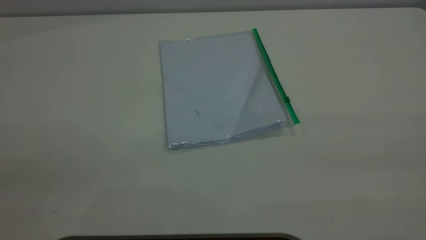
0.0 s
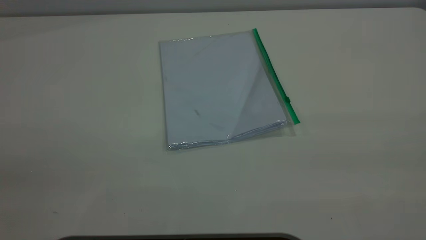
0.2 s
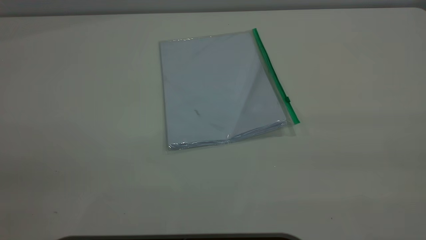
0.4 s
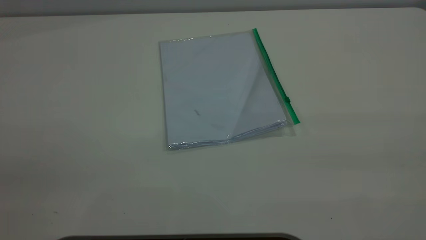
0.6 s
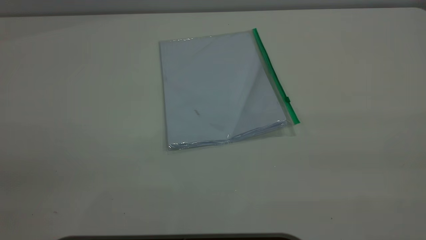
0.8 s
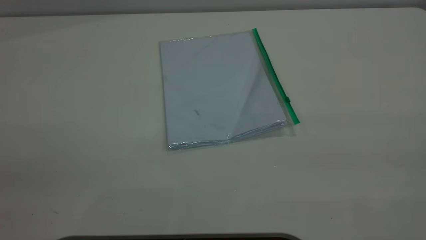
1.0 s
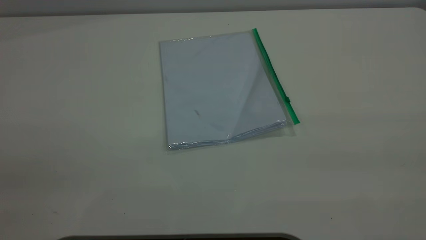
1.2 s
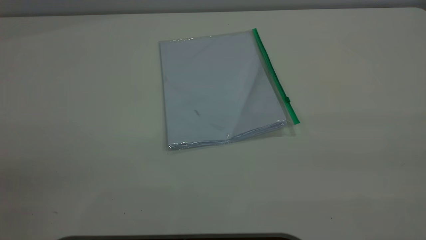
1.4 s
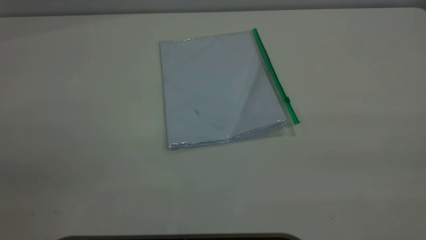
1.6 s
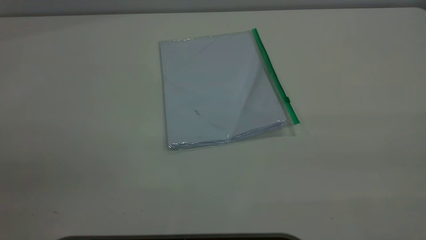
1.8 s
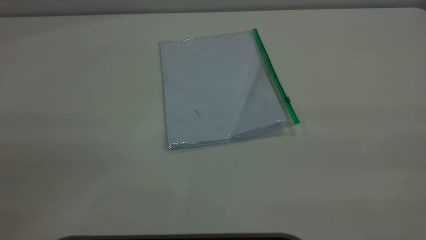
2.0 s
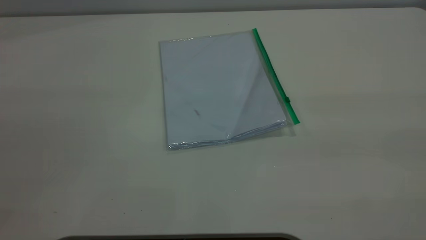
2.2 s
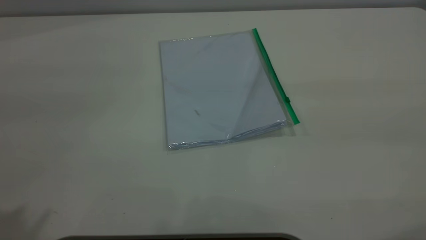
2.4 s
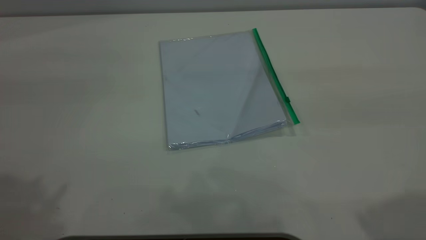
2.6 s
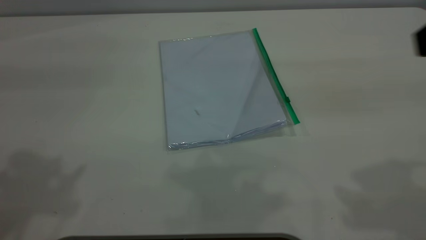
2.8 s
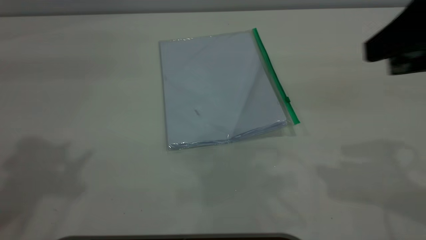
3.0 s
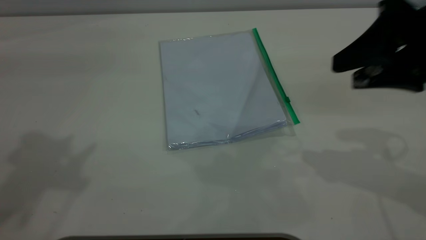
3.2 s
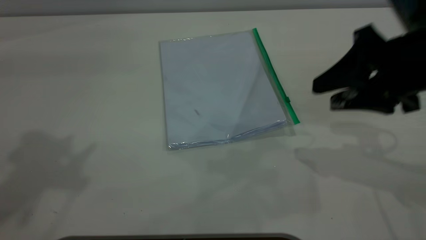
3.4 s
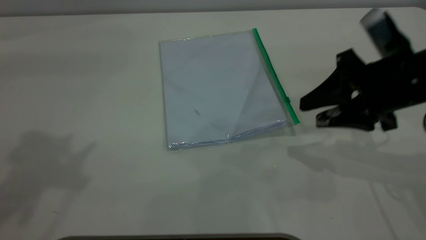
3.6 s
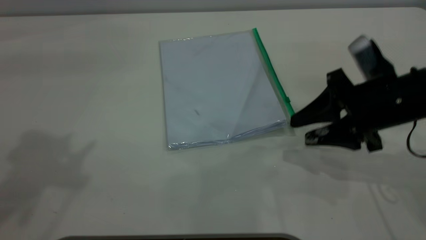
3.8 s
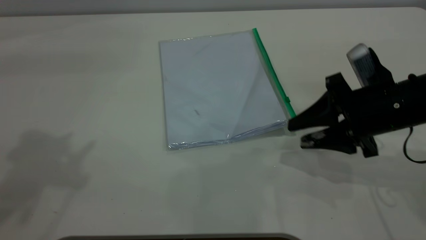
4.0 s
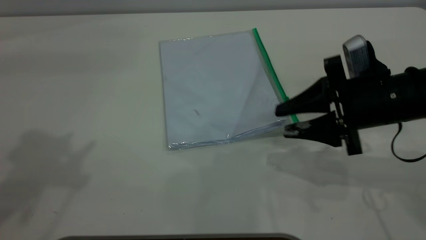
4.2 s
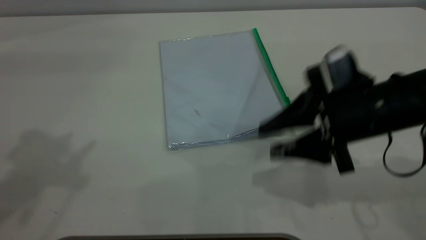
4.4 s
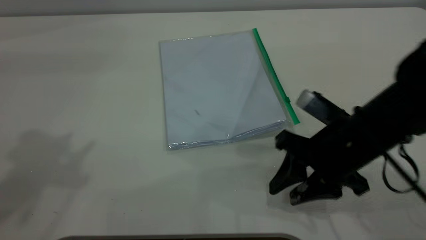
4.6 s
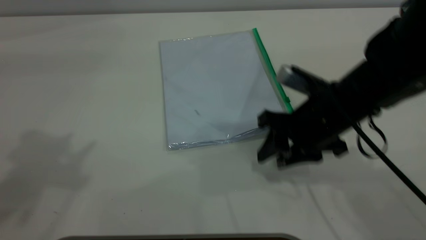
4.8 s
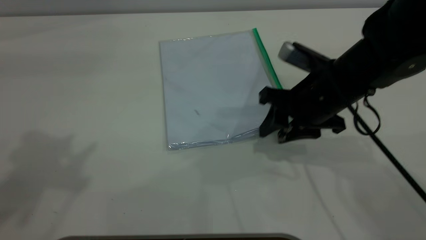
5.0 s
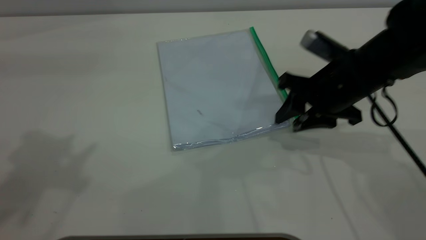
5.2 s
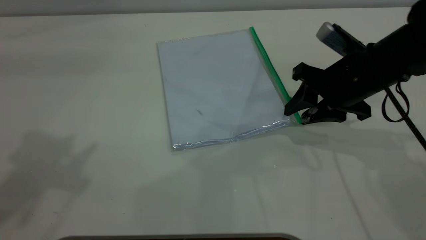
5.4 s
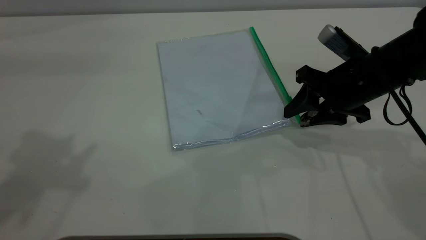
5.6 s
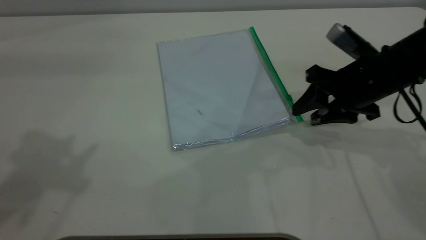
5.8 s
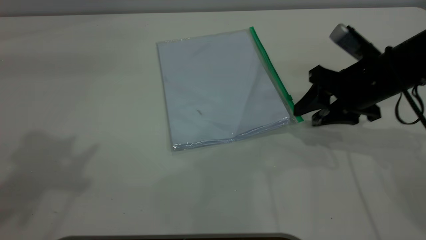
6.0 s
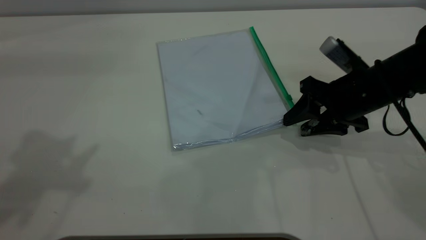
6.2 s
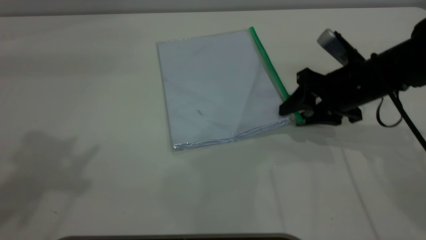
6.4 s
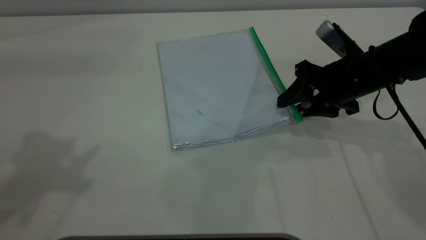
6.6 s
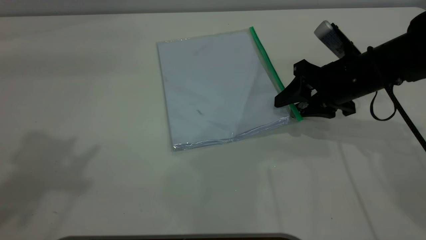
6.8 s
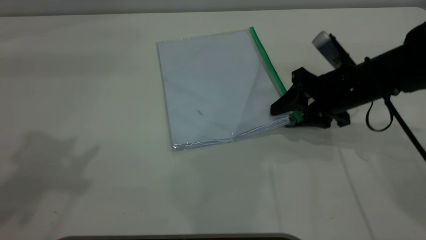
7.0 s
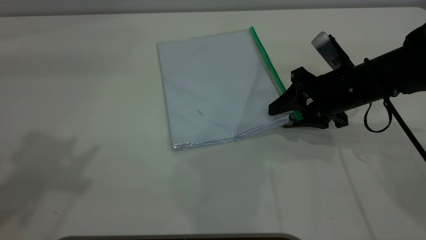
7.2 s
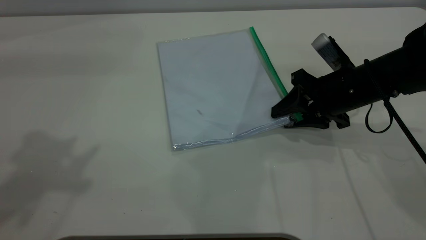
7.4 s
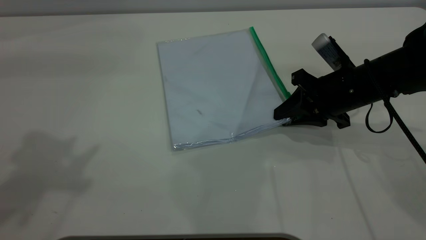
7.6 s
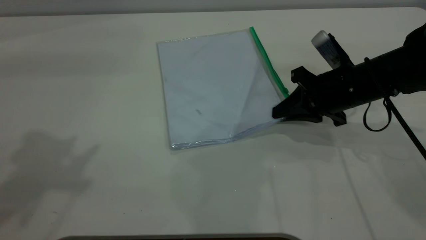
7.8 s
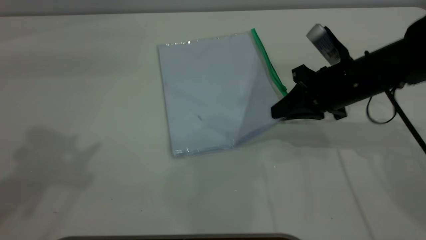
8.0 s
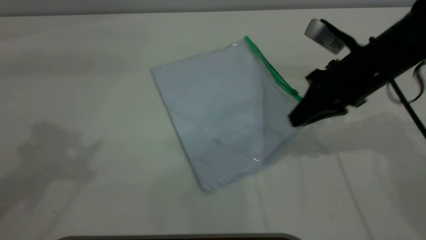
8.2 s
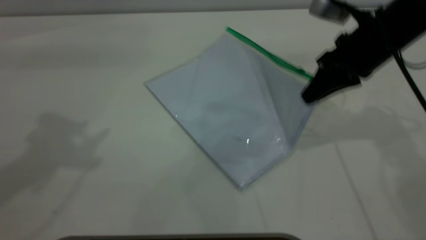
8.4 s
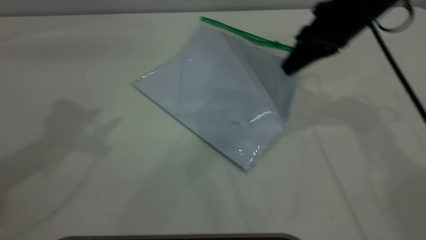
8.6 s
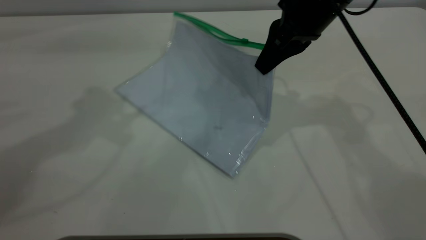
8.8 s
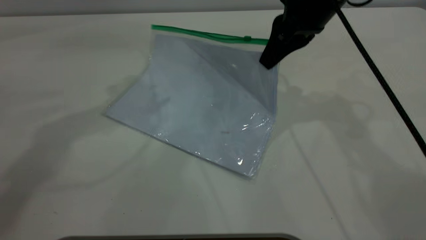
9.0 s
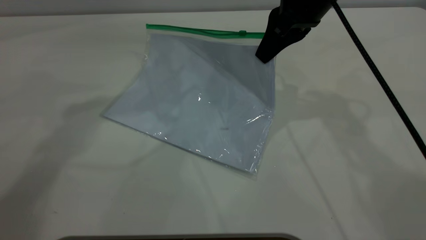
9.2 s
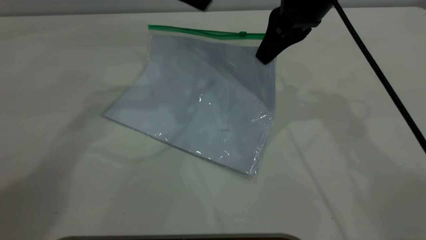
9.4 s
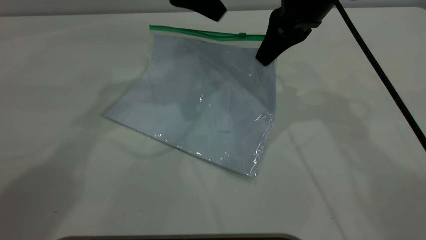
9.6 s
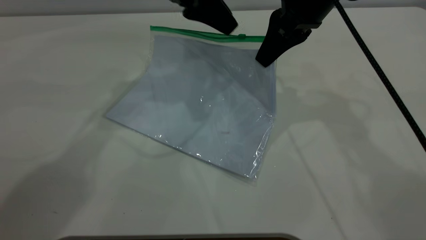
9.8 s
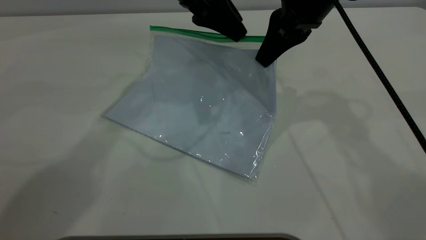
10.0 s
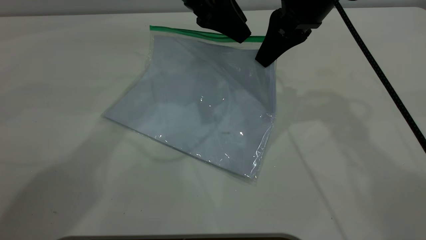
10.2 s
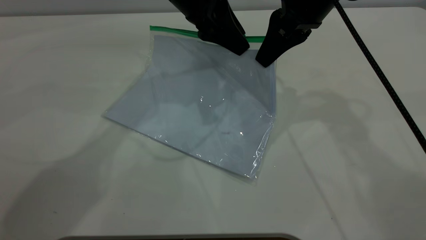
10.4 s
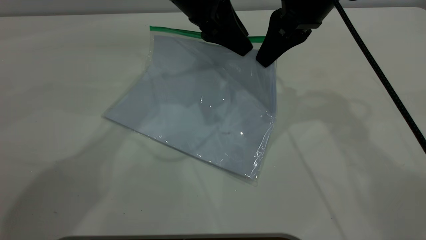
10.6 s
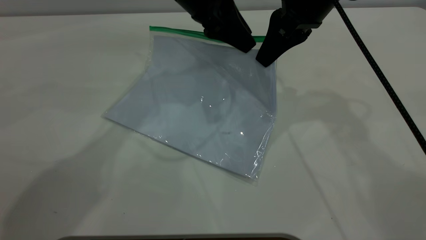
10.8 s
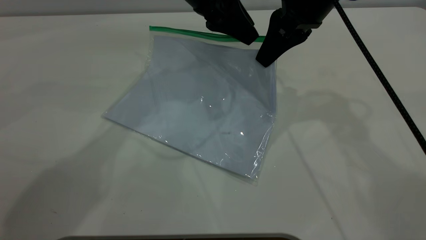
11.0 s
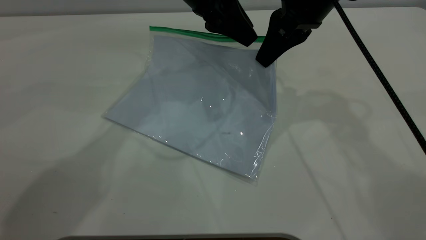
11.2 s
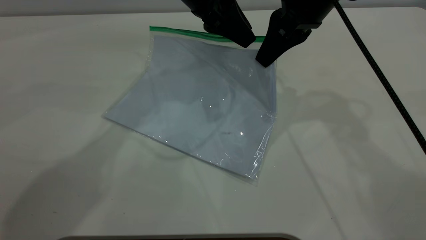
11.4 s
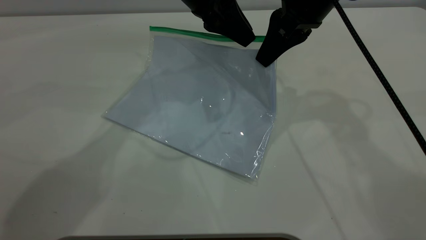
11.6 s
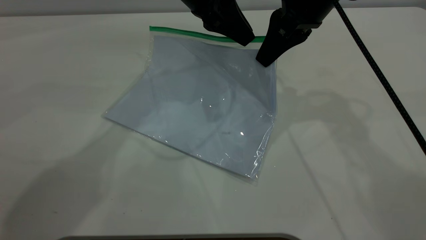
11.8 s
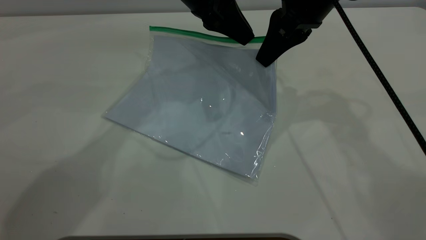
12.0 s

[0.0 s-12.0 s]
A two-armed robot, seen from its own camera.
Step, 0.0 to 8.2 s: Pick up the transparent plastic bag with the right gripper.
0.0 to 1.6 s: Both grippers stay about where they are.
1.6 to 3.0 s: The right gripper moves forward and downward, about 25 cm.
3.0 to 4.4 s: The right gripper moves downward and to the left, about 15 cm.
4.4 to 6.0 s: The right gripper goes some 10 cm forward.
6.0 to 7.6 s: The right gripper closes up.
7.6 to 9.0 s: The left gripper goes roughly 20 cm forward, to the right and downward, while the right gripper is displaced upward and to the left by approximately 15 cm.
9.0 to 10.4 s: The left gripper goes some 15 cm to the right and downward.
10.4 to 12.0 s: The left gripper closes its fingers.

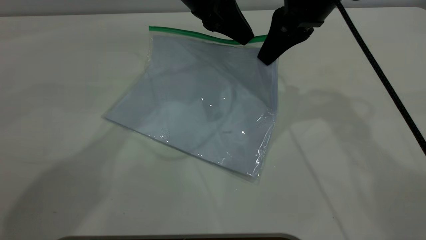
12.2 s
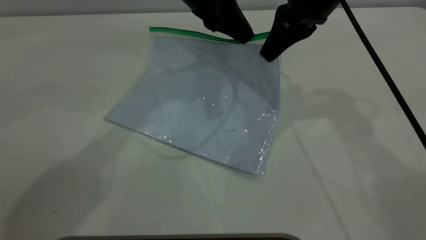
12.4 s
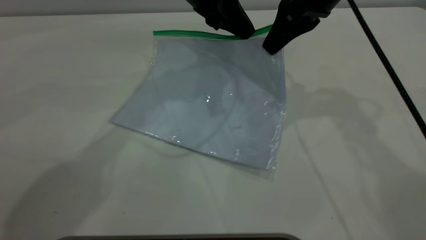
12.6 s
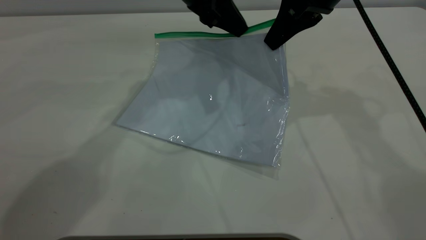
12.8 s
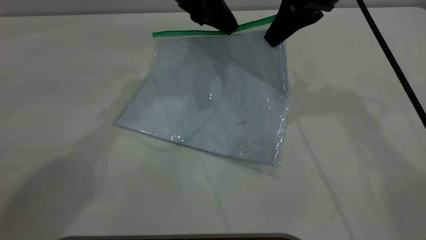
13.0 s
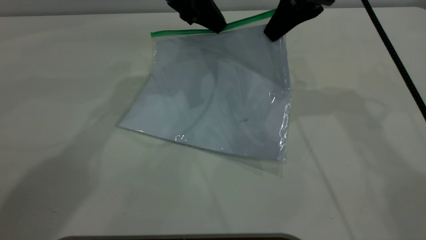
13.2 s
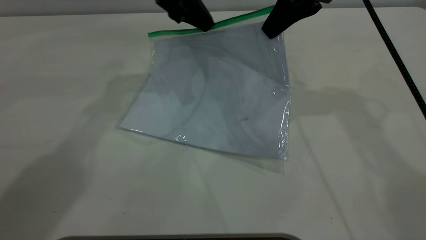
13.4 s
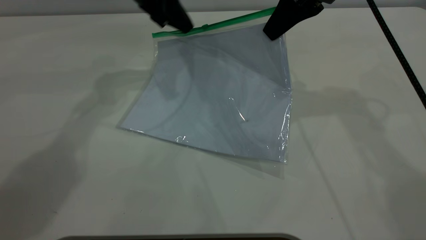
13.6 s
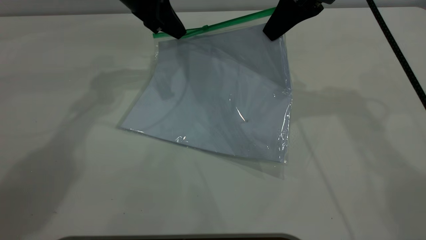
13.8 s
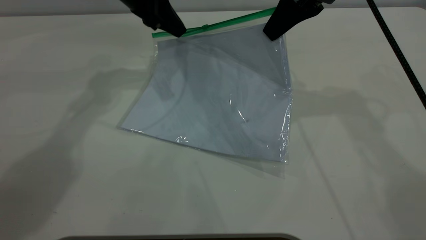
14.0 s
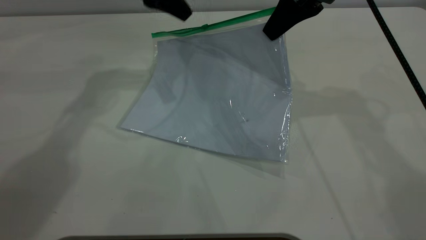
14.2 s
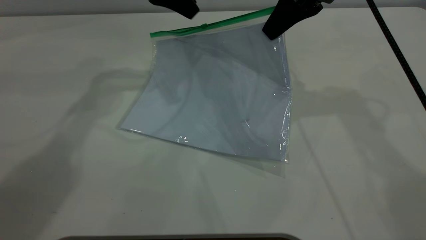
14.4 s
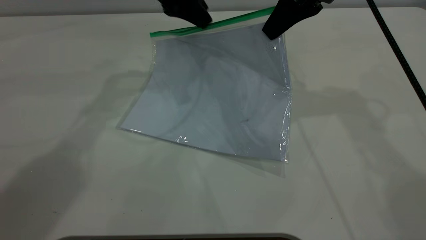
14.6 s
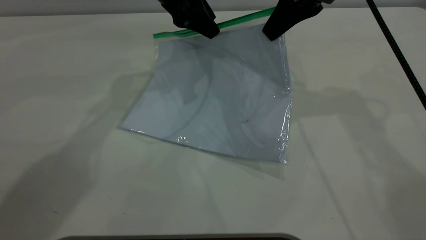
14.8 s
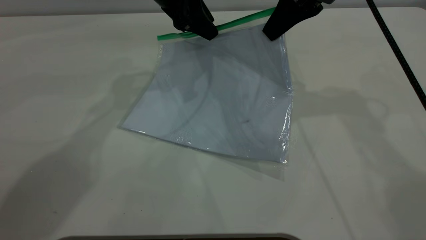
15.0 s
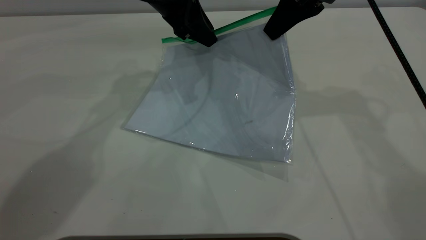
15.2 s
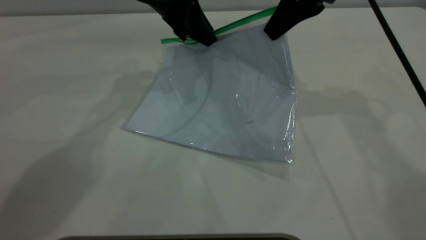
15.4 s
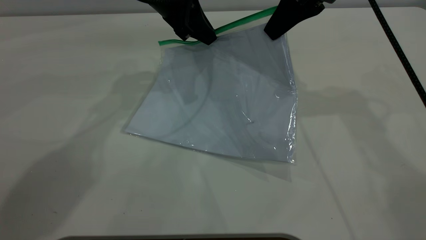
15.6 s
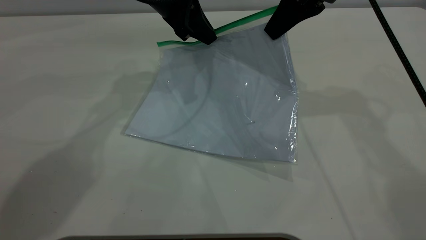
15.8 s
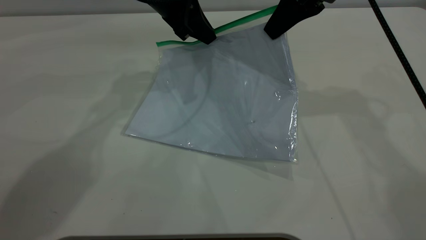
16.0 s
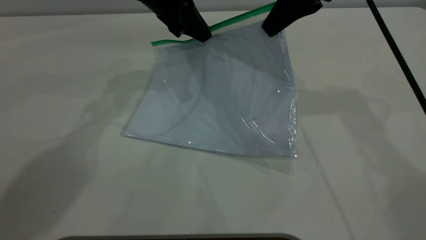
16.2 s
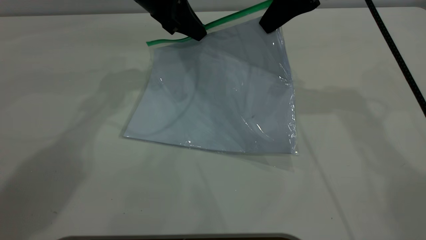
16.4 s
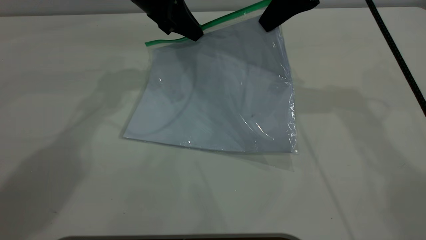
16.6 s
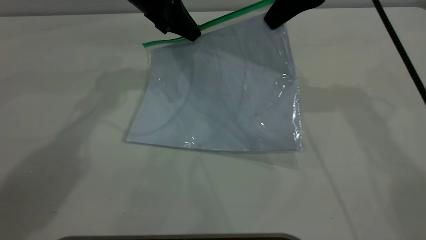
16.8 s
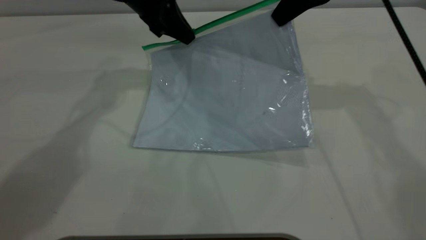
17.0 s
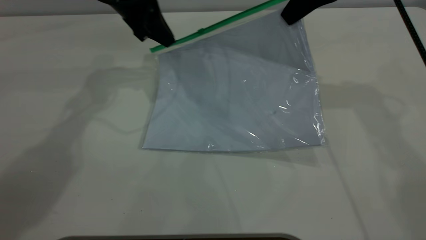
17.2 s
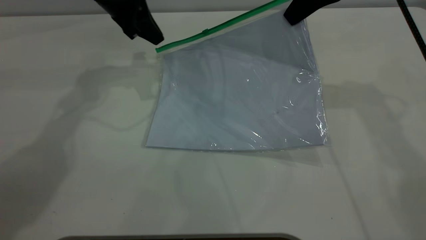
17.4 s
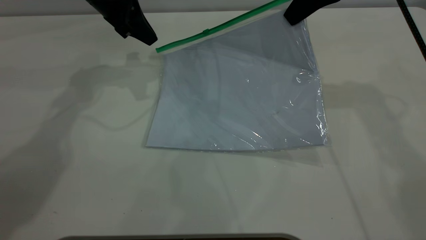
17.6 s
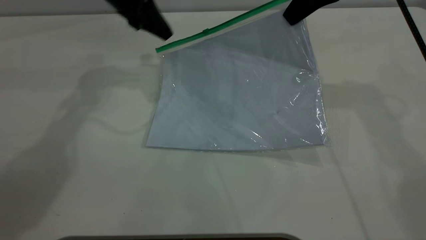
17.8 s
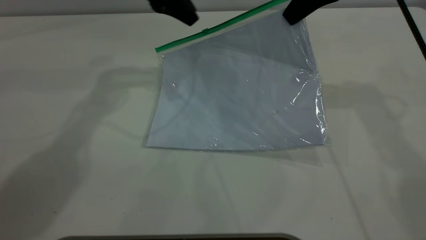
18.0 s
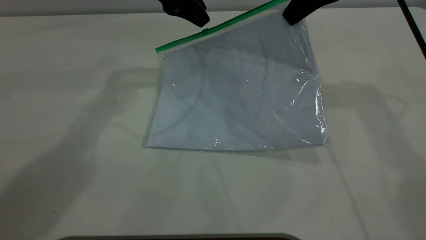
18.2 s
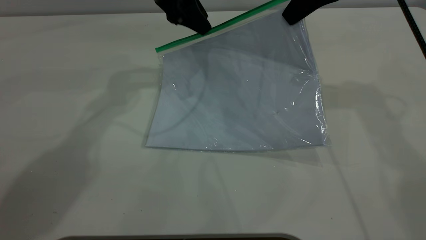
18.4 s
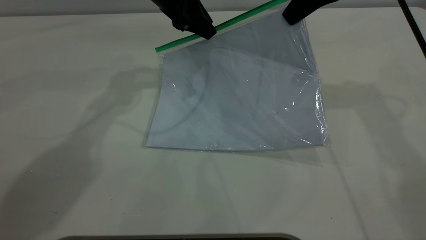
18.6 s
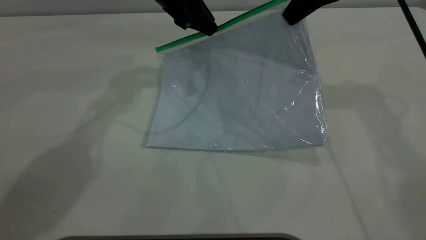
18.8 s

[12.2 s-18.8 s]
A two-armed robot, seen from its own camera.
12.2 to 13.8 s: The left gripper heads to the left and forward, covering approximately 10 cm.
13.8 to 15.4 s: The left gripper changes place by some 5 cm, and opens, then closes once more.
15.4 to 17.2 s: The left gripper goes roughly 5 cm to the left.
17.2 to 18.8 s: The left gripper heads to the right, covering about 5 cm, and opens up.
